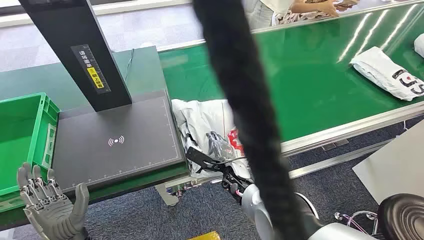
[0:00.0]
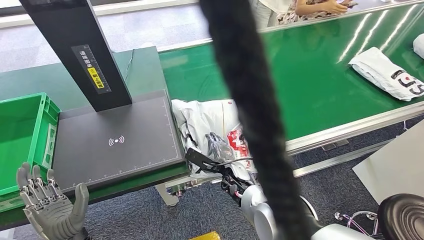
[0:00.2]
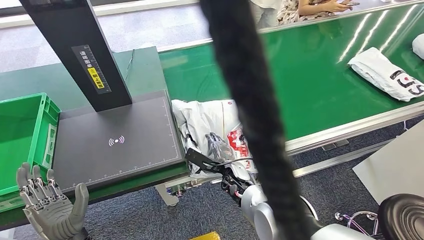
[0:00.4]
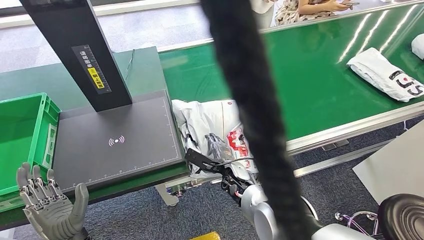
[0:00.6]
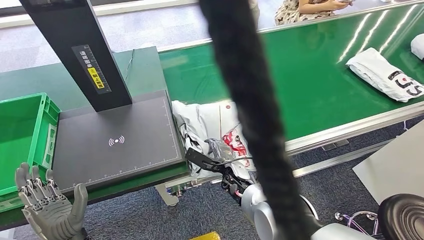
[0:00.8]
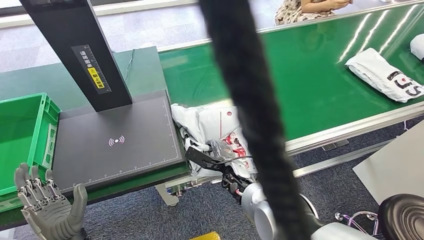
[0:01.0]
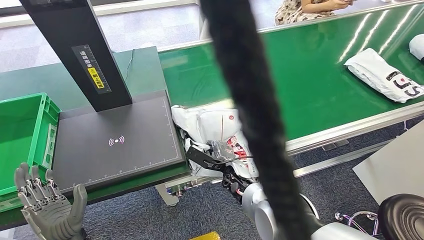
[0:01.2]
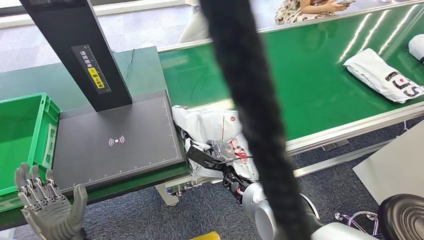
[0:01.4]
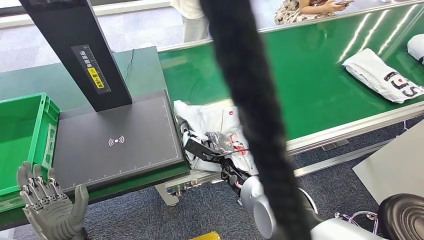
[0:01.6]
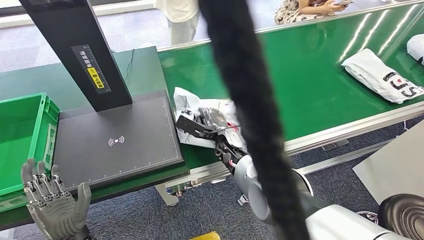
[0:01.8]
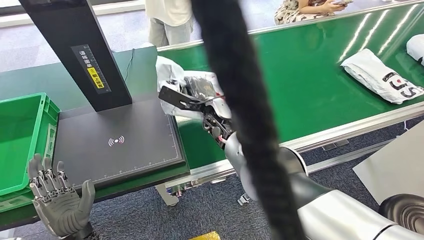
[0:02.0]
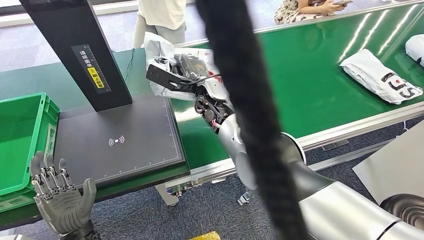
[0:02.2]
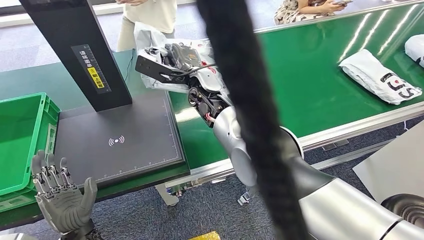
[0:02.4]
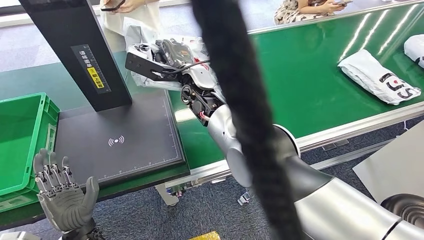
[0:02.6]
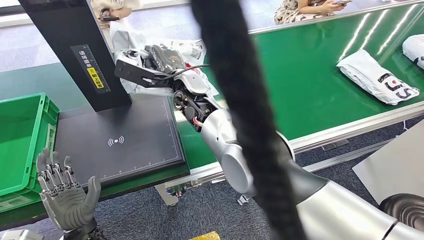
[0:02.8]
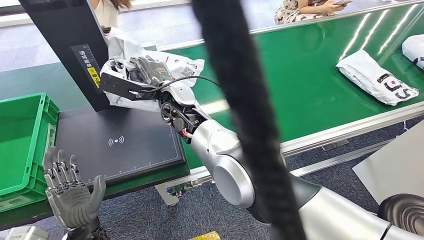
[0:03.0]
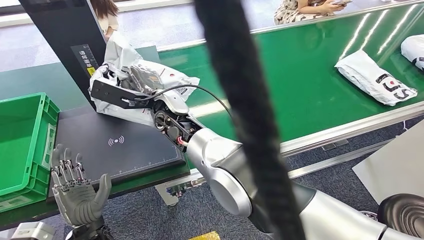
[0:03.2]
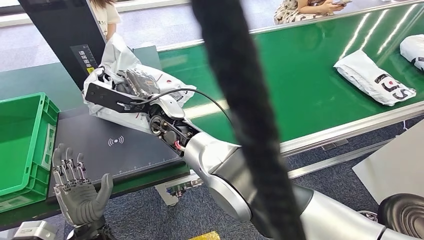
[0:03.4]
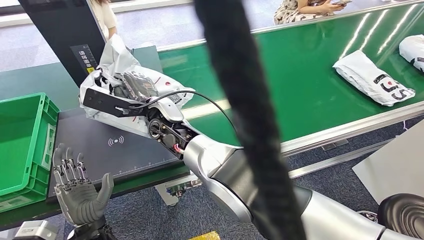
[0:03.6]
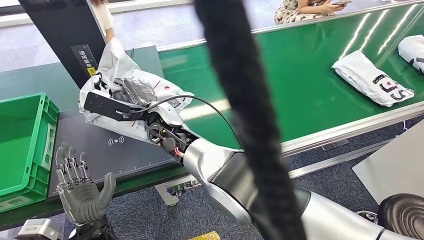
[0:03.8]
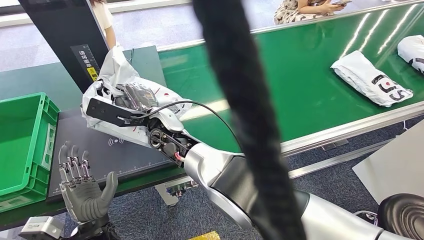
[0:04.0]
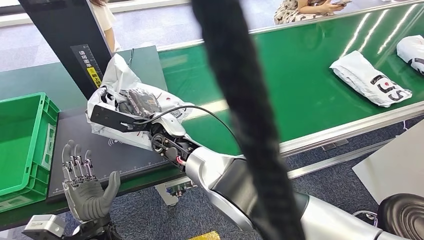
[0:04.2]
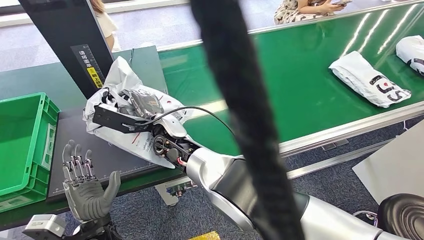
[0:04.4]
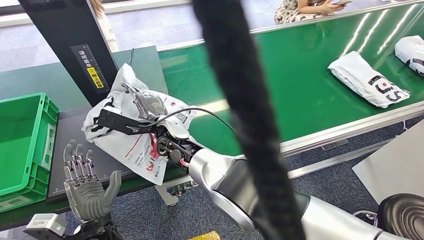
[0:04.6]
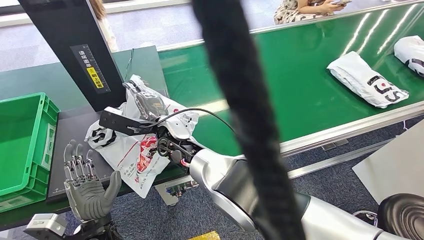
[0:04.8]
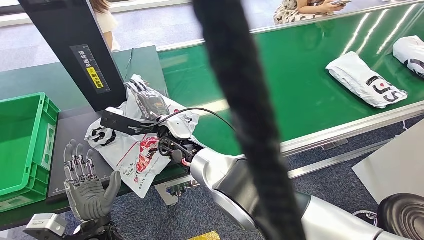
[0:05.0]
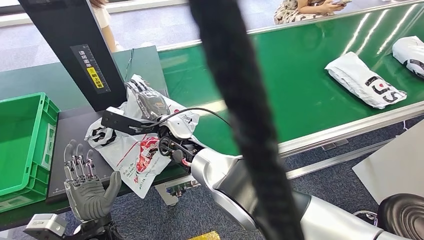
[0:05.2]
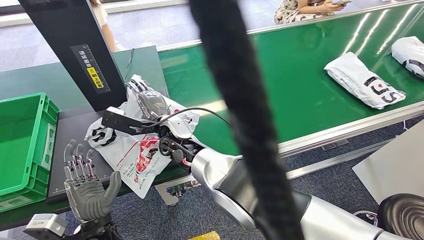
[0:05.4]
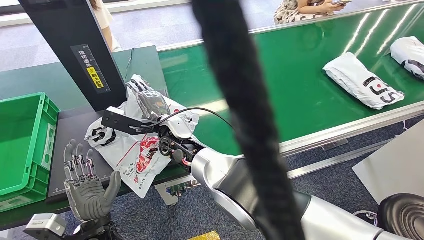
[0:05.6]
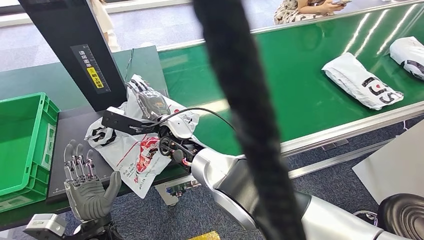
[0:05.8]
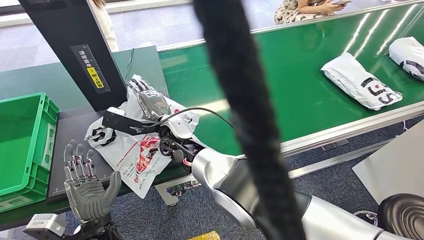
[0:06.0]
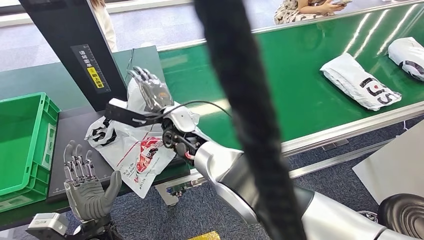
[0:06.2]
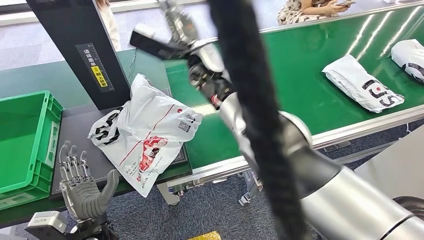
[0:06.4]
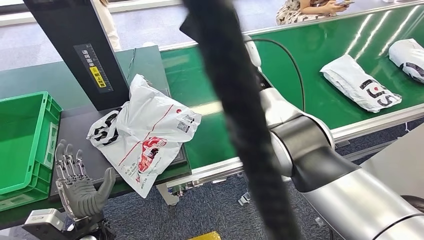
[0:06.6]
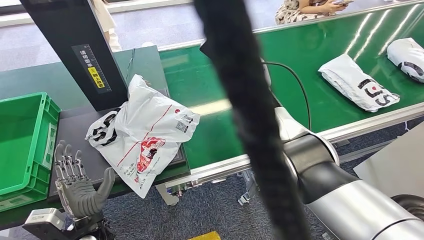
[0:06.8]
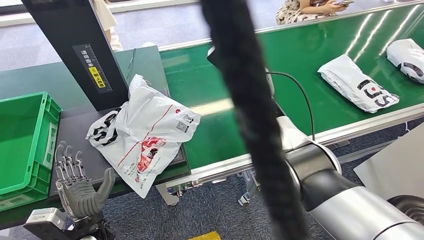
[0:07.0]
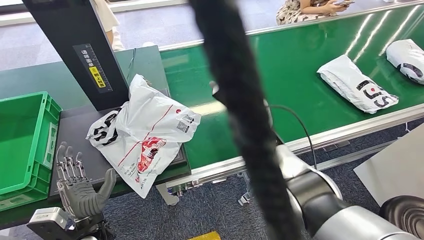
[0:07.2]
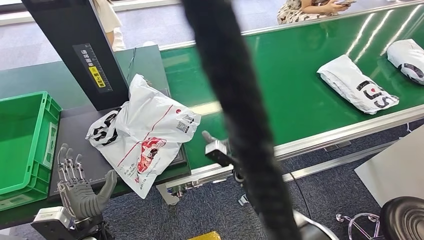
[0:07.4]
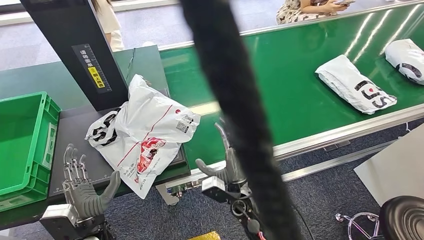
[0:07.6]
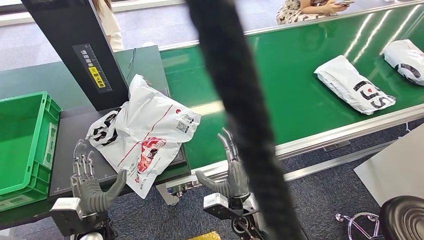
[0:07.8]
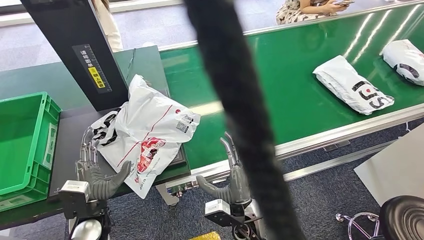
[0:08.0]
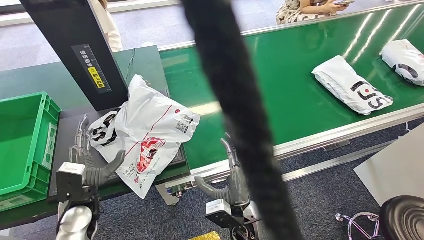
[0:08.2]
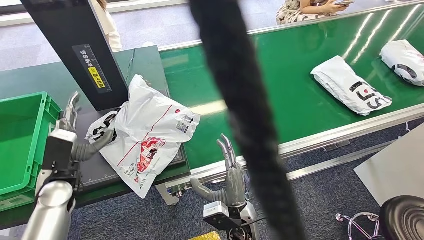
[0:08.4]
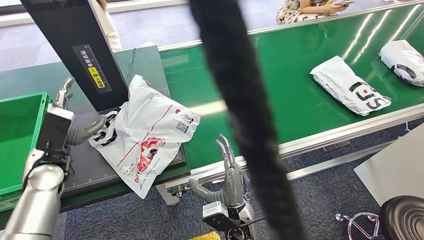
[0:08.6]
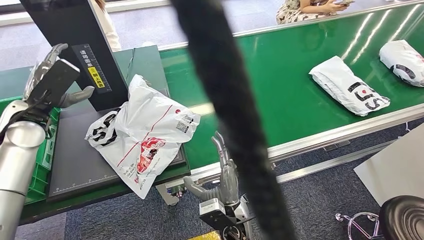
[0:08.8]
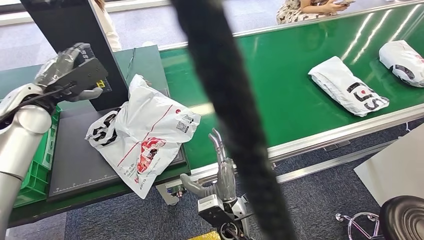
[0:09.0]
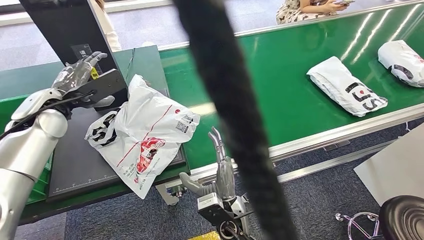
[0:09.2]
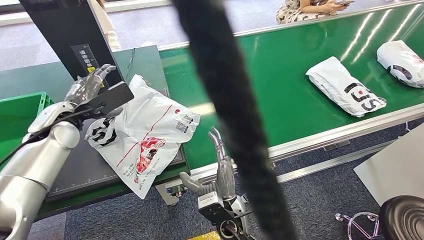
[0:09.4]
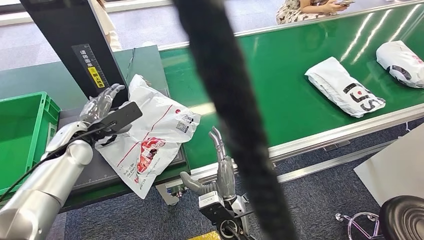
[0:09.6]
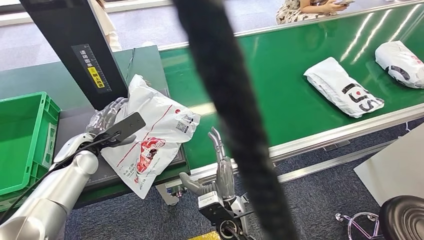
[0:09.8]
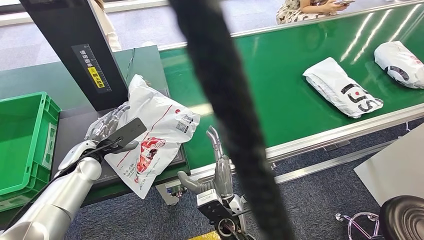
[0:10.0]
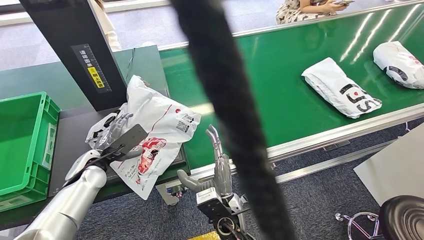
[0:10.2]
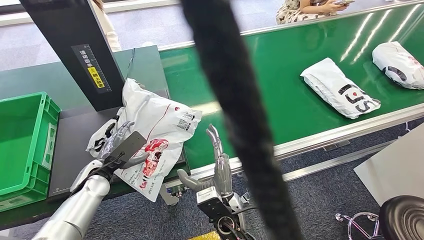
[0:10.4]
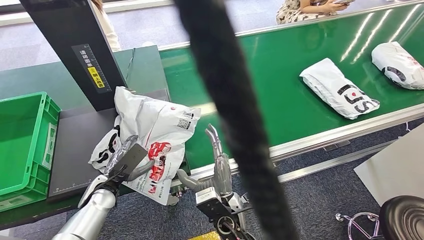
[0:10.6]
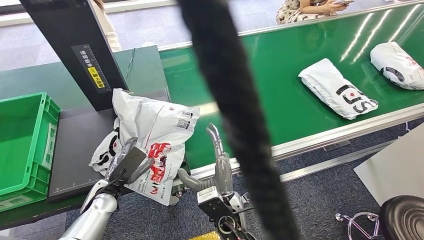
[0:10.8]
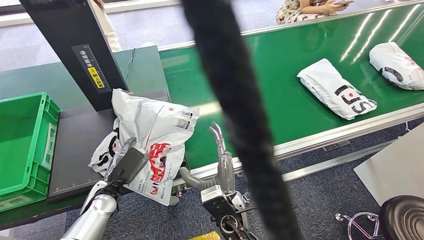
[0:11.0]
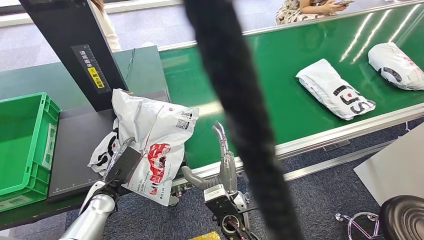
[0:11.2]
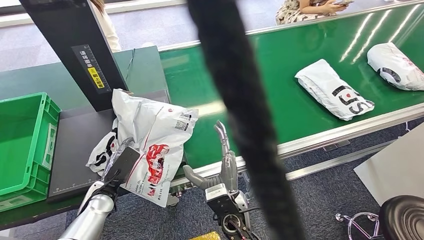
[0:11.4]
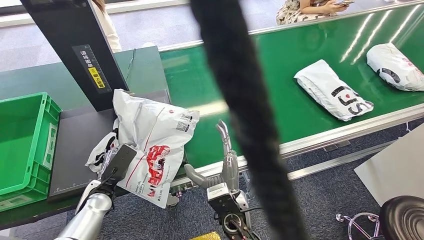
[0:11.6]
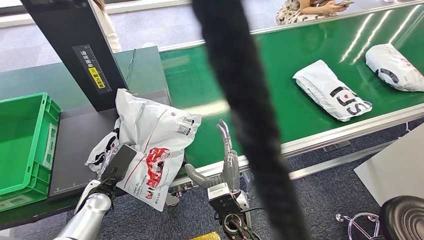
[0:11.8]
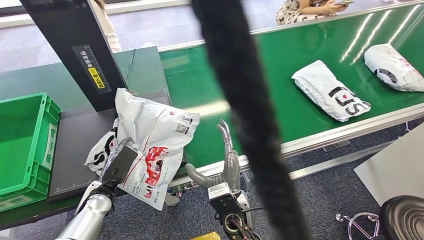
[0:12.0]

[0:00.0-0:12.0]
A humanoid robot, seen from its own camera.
Step, 0:00.0 to 0:02.8: Pick up the package from the conveyor belt.
Step, 0:03.0 to 0:06.4: Place the package onto the inbound machine.
0:04.4 to 0:06.0: The hands move only a little.

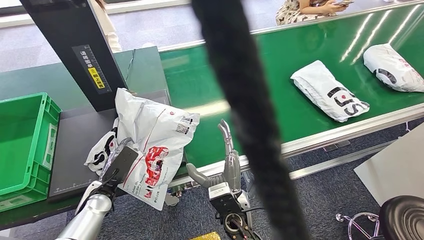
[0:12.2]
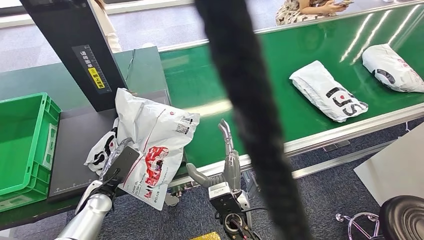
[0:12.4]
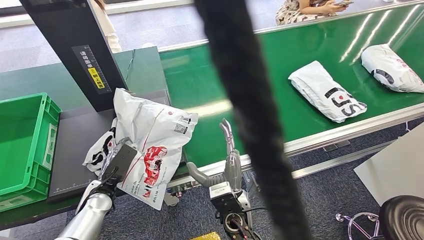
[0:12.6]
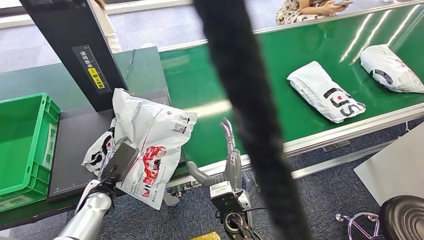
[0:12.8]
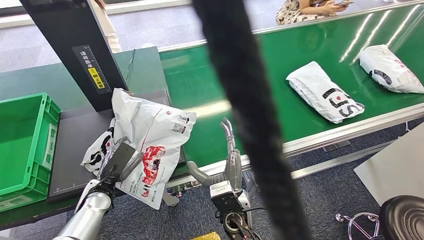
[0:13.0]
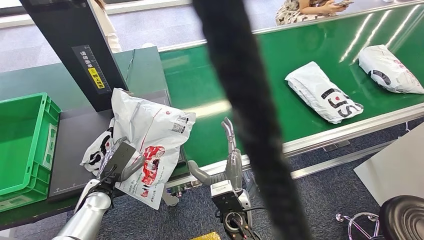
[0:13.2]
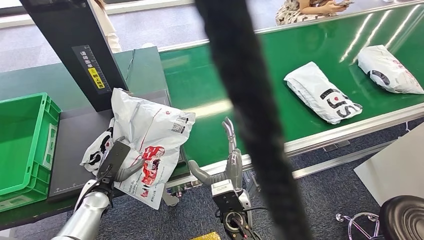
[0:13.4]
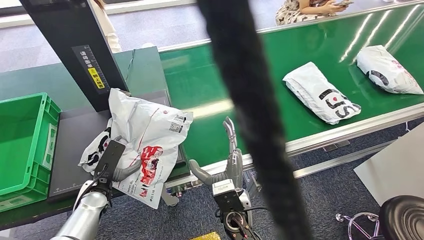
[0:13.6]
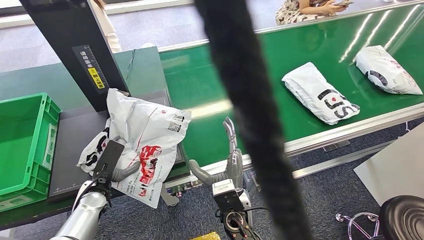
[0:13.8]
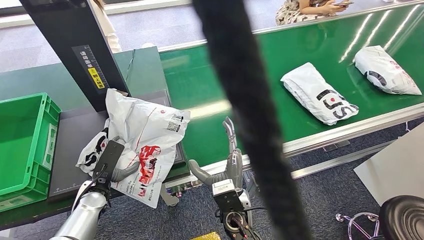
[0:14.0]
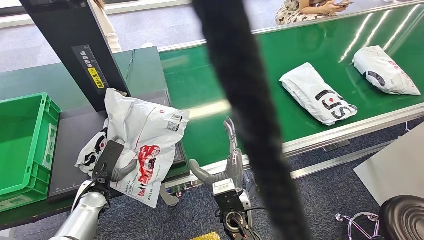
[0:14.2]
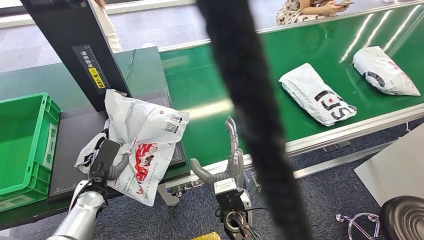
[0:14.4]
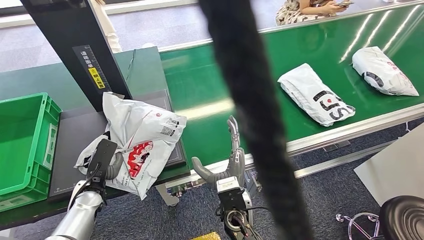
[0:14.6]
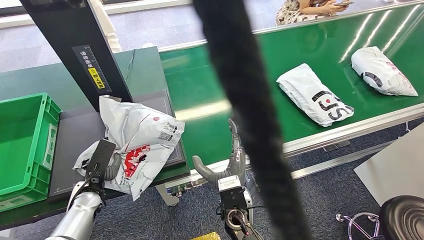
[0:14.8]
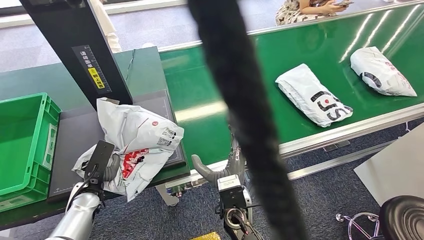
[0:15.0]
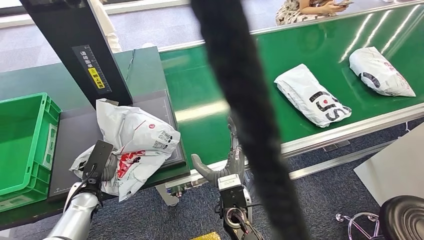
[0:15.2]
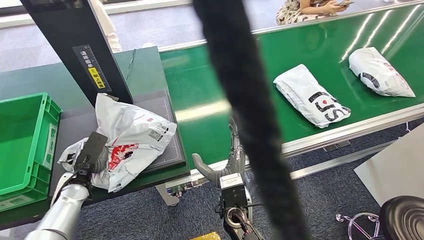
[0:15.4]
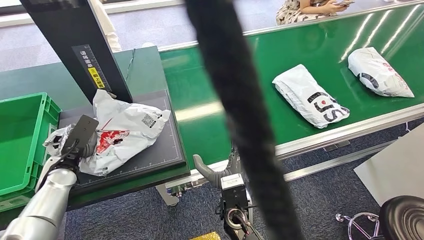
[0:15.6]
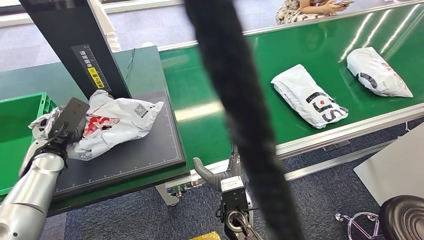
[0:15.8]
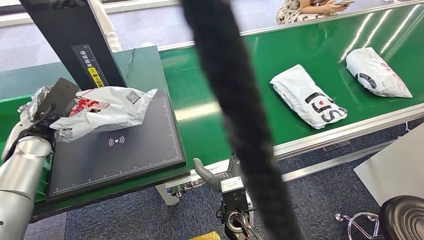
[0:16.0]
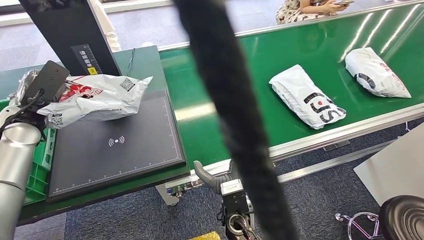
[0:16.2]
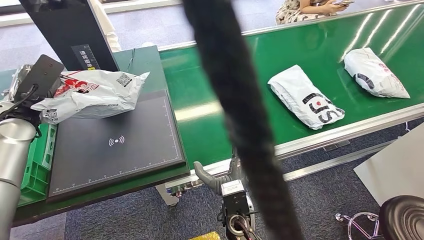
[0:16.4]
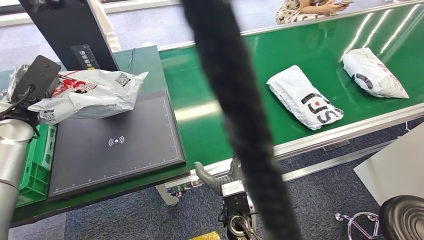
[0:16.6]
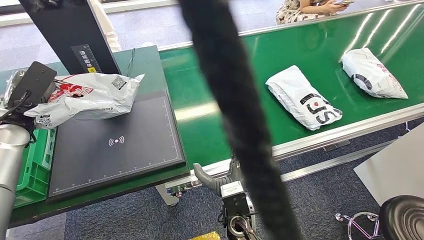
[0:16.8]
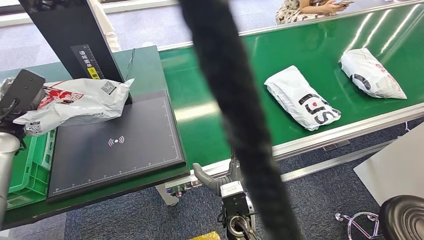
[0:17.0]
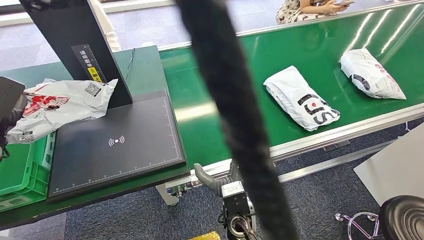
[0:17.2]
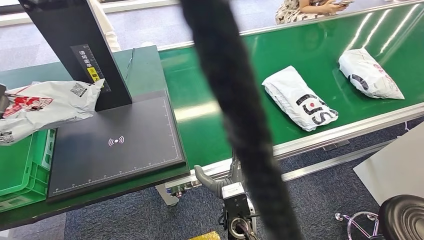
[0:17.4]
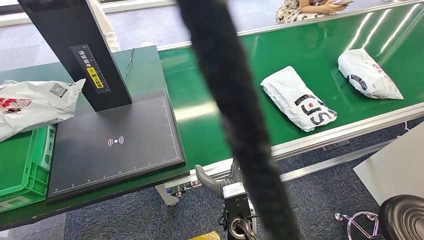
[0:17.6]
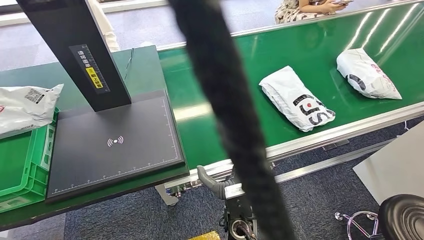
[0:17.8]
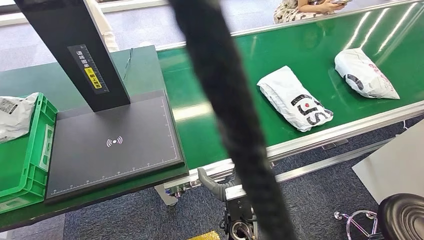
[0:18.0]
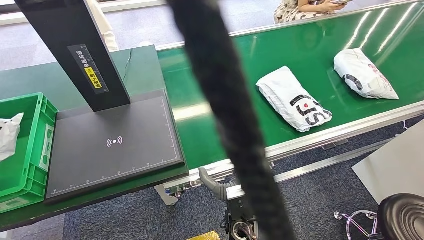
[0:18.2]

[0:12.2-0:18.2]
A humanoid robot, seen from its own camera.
Step, 0:12.2 to 0:16.0: Pick up the package from the inbound machine.
0:12.2 to 0:15.2: The hands move only a little.
